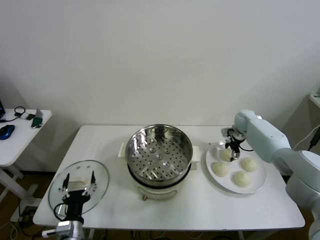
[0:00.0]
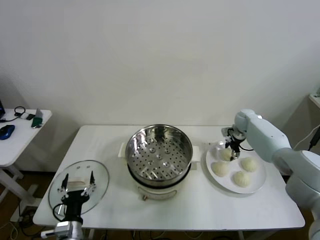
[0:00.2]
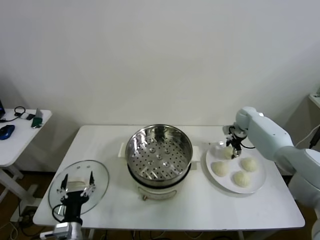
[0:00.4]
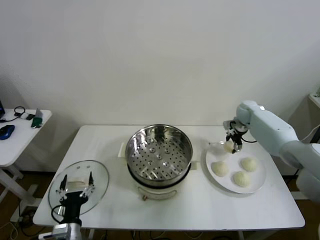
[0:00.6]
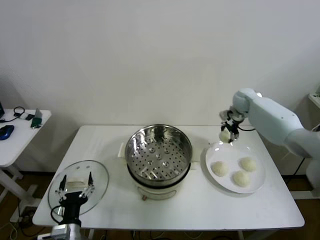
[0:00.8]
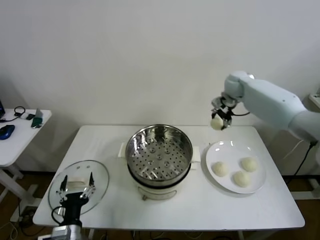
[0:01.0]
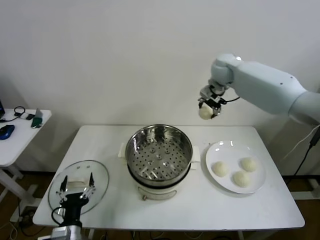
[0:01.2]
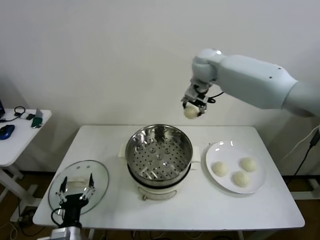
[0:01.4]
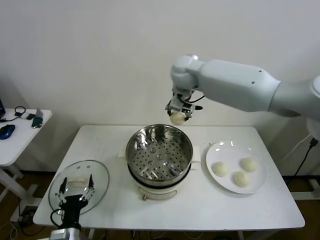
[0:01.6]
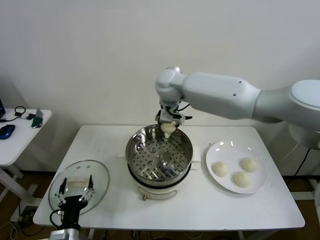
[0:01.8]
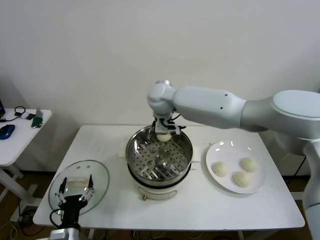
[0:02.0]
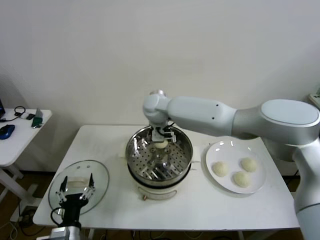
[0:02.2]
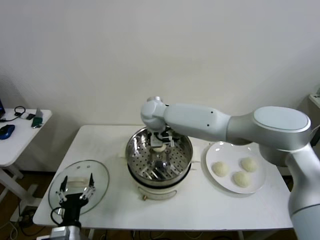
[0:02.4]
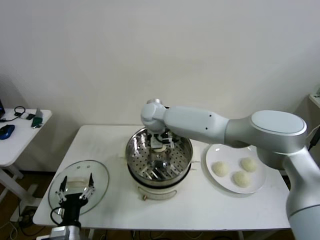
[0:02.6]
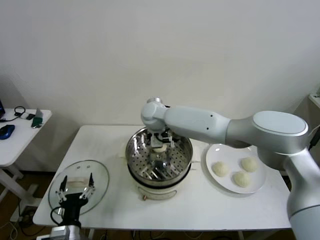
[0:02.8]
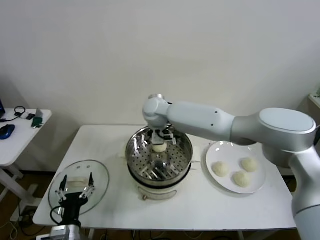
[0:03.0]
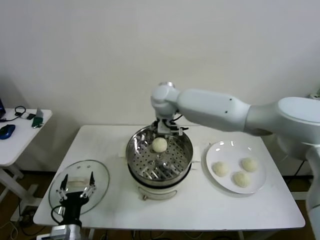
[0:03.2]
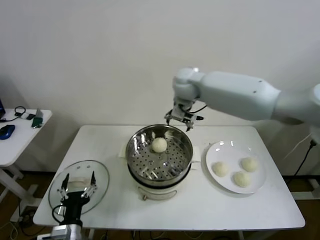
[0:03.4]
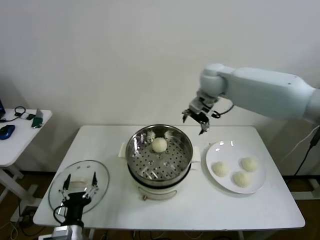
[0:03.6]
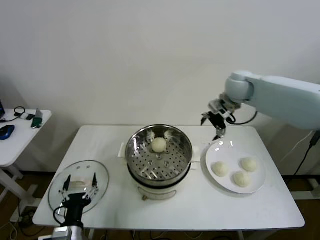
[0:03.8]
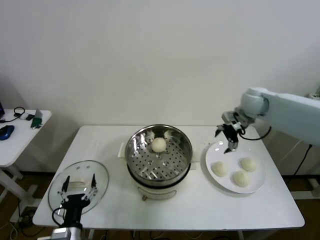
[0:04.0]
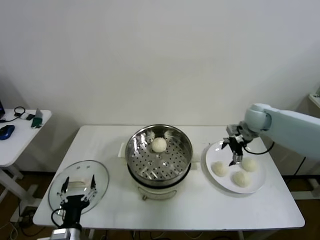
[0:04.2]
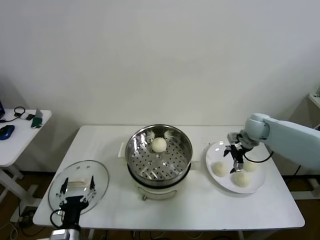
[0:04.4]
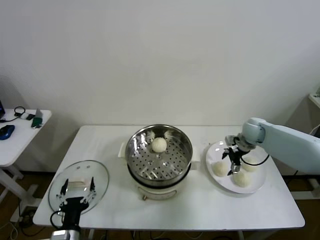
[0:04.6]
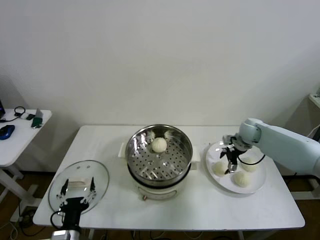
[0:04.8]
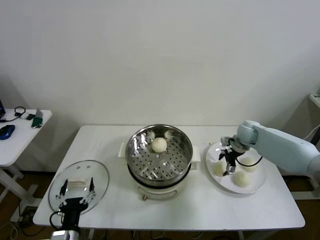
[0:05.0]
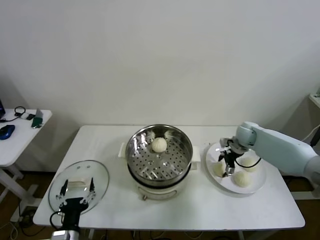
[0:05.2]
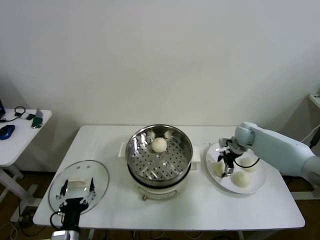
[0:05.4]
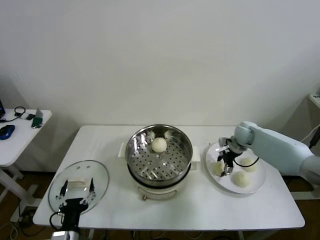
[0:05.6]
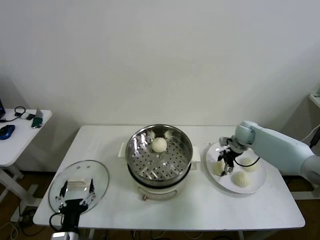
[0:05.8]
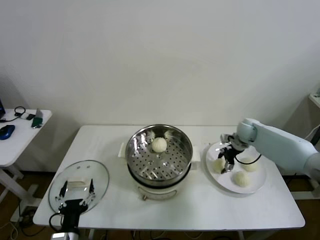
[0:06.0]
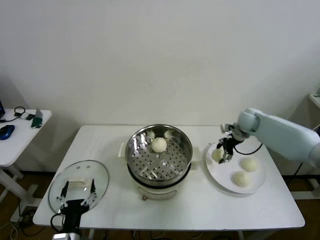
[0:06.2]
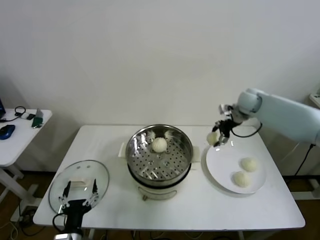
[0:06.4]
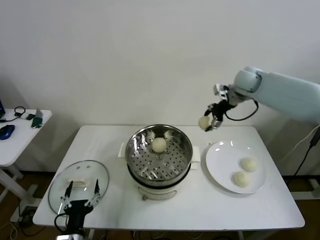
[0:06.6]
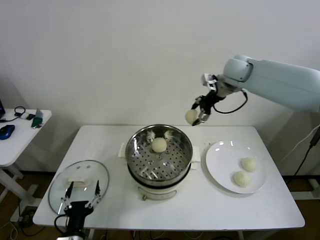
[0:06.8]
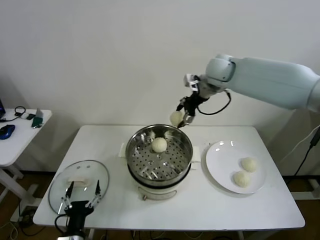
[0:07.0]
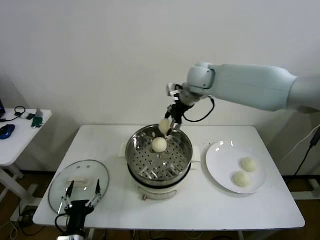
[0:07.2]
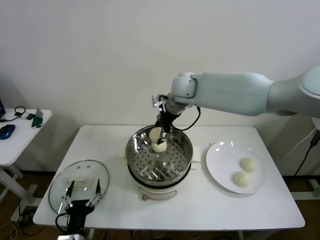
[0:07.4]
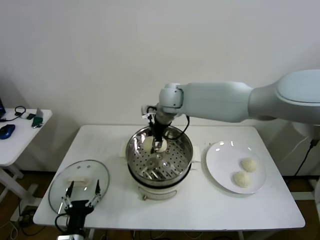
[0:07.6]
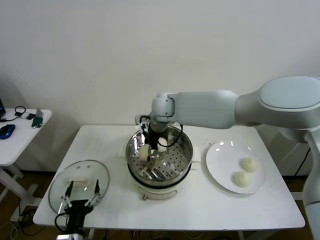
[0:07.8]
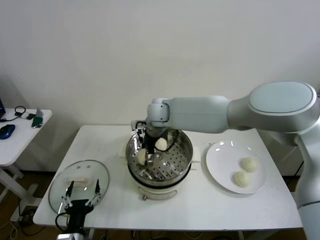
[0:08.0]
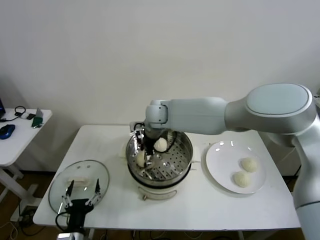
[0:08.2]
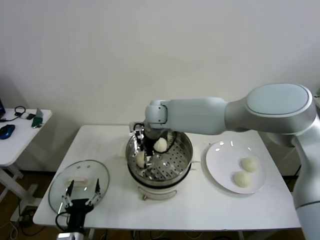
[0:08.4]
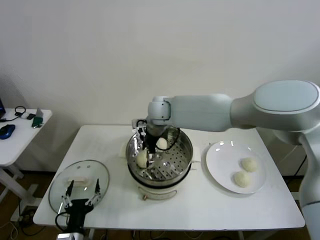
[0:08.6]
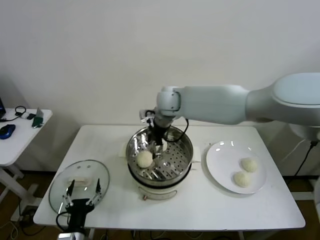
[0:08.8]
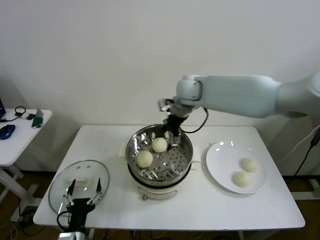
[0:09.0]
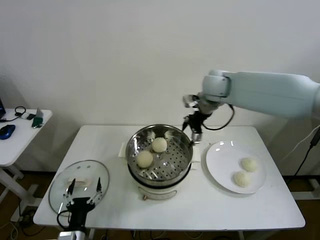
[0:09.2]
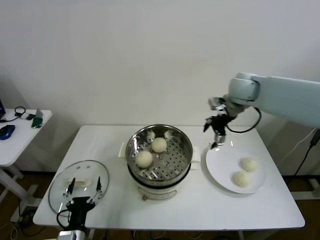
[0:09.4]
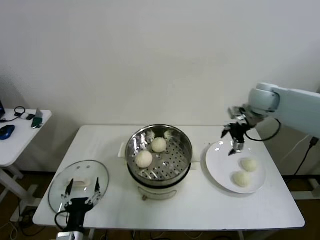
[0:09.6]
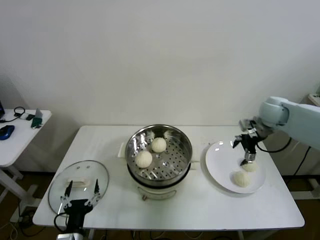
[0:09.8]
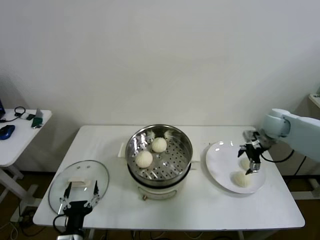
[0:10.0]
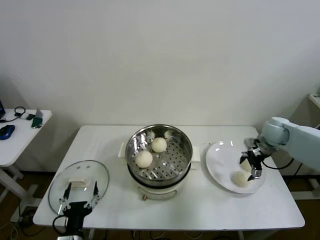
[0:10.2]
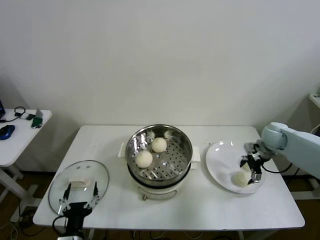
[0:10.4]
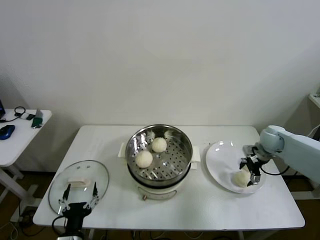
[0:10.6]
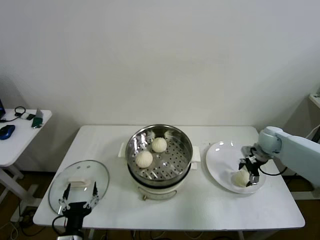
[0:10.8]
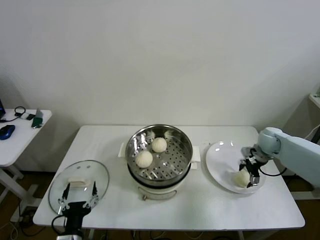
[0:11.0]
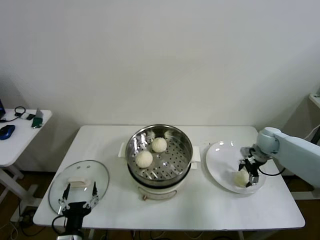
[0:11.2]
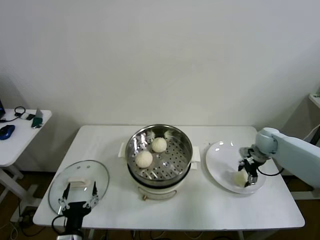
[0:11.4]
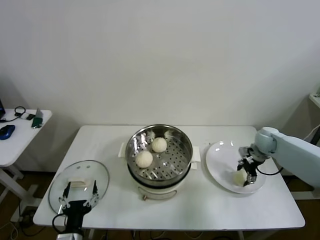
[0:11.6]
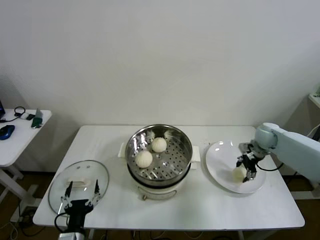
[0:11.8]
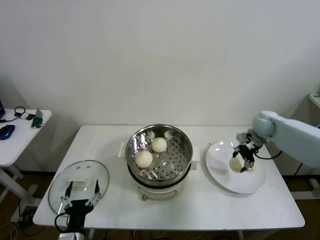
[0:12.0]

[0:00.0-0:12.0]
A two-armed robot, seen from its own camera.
Step, 0:00.2 to 0:02.8: Place the baozi on the steamer with right gripper.
Step, 0:03.0 to 0:05.6: Grasp the baozi in the plate with right gripper.
Step, 0:05.8 to 0:08.6: Place the baozi on the steamer with right gripper.
Step, 0:08.8 to 0:11.2: Grasp the baozi in the plate with right gripper.
0:00.0 to 0:01.6: The right gripper shifts approximately 40 cm to the left and upward.
0:01.6 to 0:03.0: The right gripper goes roughly 10 cm downward and to the left.
0:03.0 to 0:04.4: The right gripper is displaced to the right by some 35 cm.
0:06.0 to 0:07.6: The right gripper travels to the left and upward by about 35 cm.
0:07.6 to 0:09.0: The right gripper is displaced to the right by approximately 10 cm.
0:09.0 to 0:10.4: The right gripper is displaced to the right and downward by approximately 35 cm.
0:10.4 to 0:12.0: The right gripper moves some 5 cm.

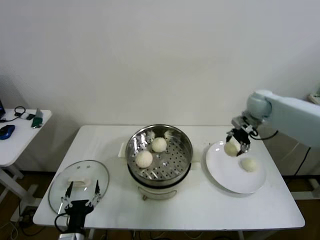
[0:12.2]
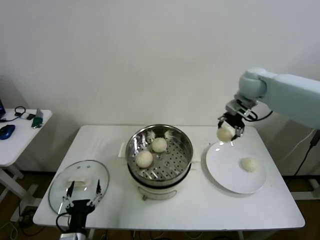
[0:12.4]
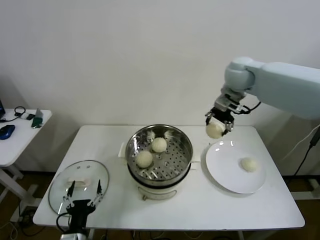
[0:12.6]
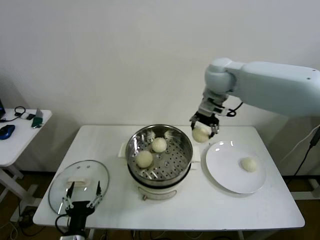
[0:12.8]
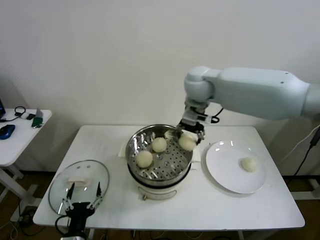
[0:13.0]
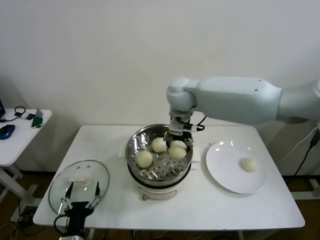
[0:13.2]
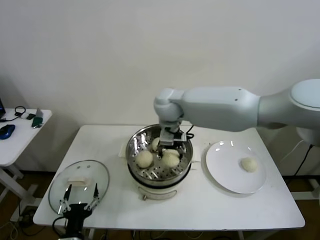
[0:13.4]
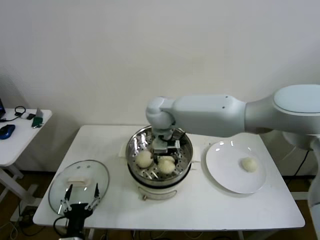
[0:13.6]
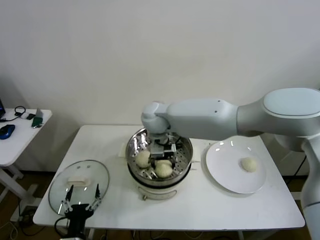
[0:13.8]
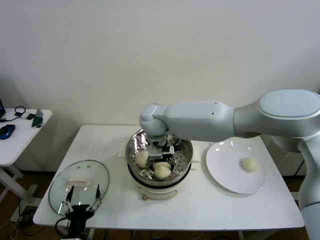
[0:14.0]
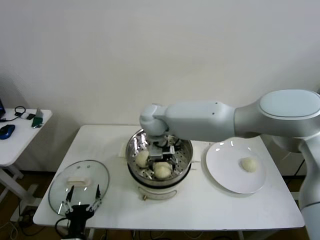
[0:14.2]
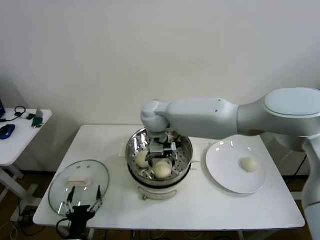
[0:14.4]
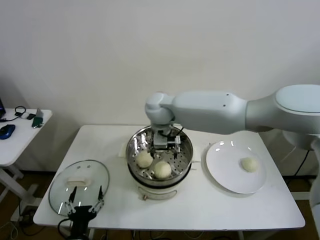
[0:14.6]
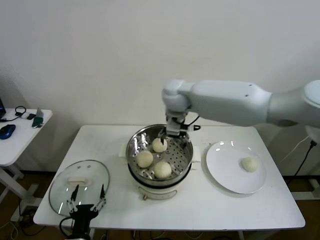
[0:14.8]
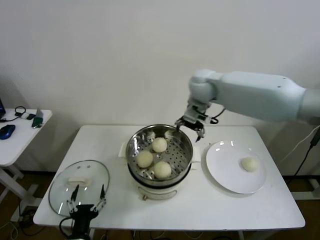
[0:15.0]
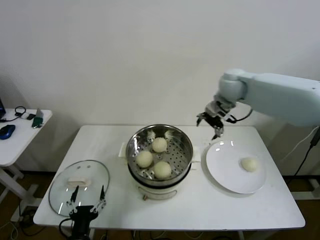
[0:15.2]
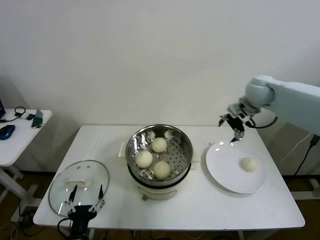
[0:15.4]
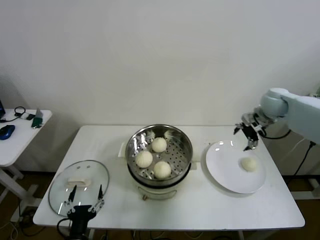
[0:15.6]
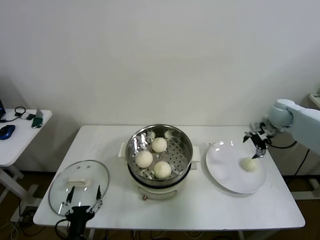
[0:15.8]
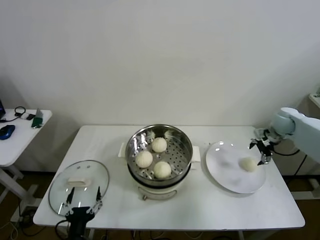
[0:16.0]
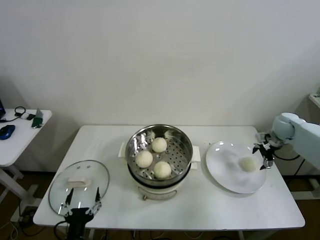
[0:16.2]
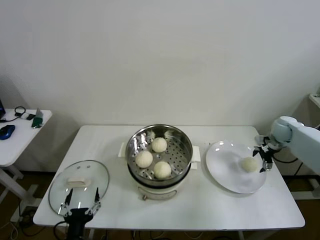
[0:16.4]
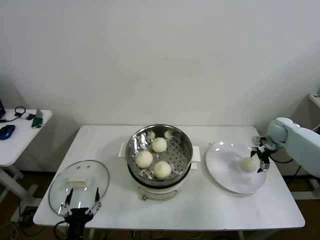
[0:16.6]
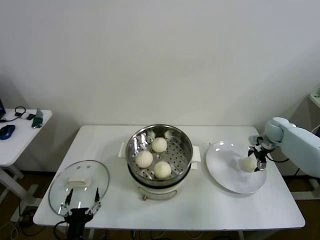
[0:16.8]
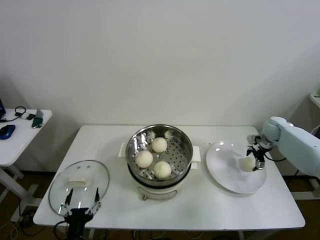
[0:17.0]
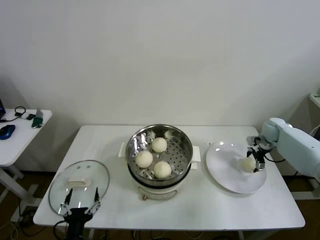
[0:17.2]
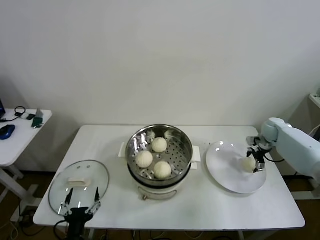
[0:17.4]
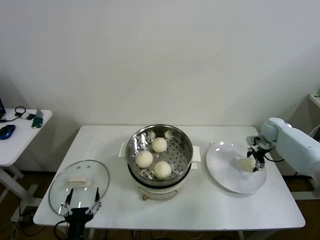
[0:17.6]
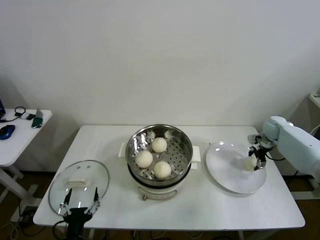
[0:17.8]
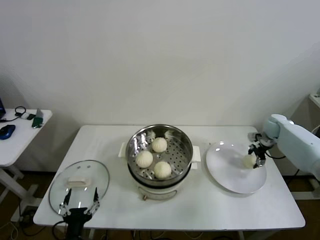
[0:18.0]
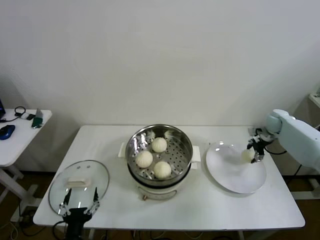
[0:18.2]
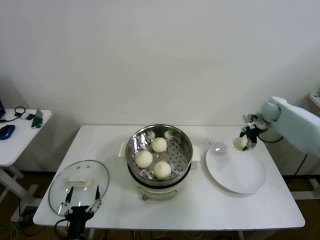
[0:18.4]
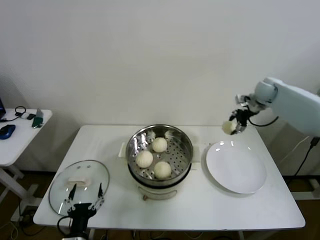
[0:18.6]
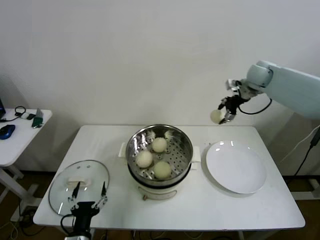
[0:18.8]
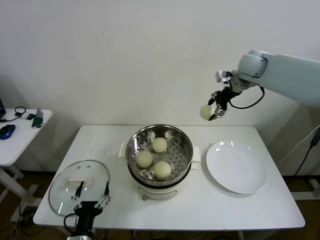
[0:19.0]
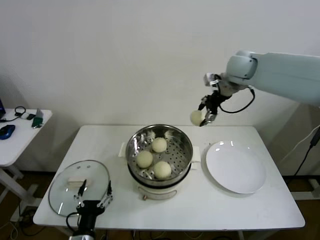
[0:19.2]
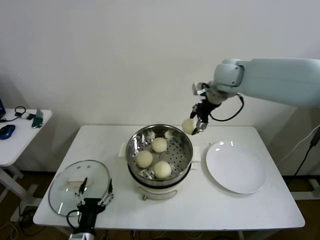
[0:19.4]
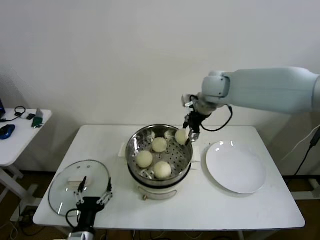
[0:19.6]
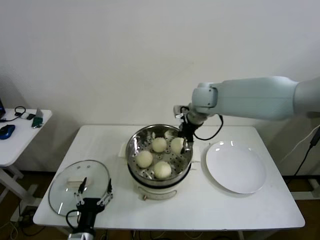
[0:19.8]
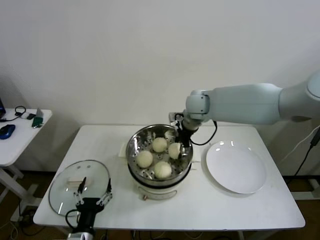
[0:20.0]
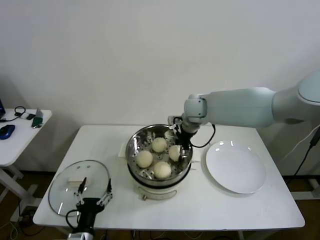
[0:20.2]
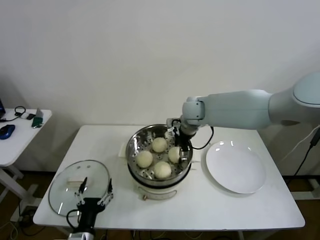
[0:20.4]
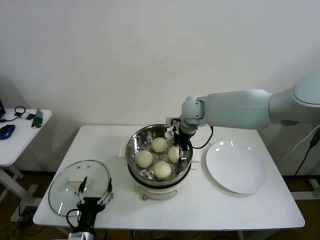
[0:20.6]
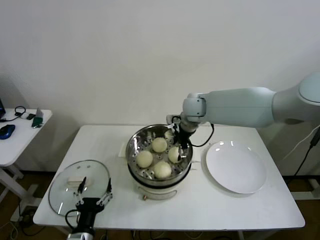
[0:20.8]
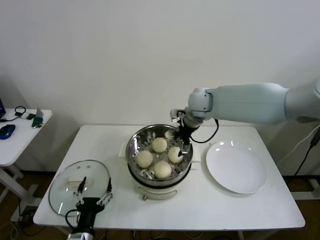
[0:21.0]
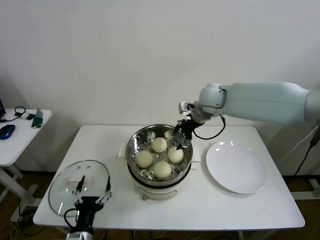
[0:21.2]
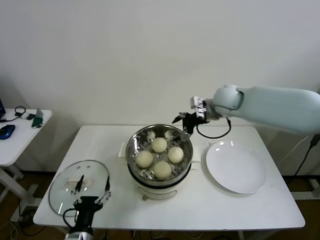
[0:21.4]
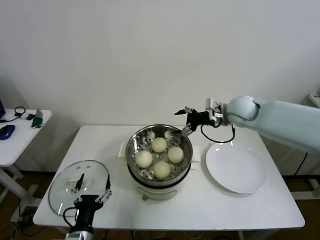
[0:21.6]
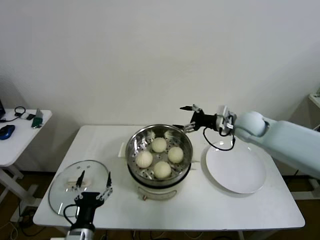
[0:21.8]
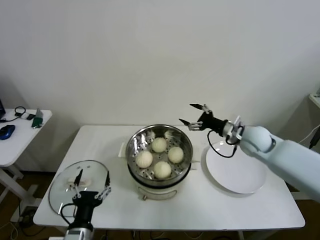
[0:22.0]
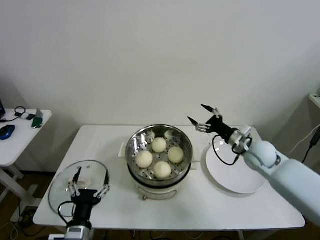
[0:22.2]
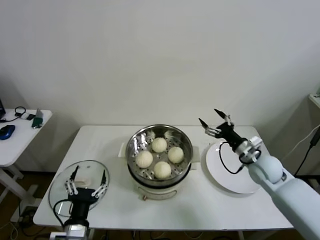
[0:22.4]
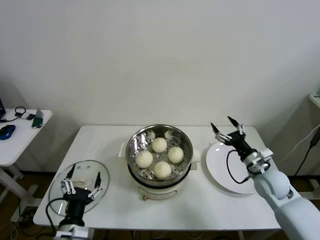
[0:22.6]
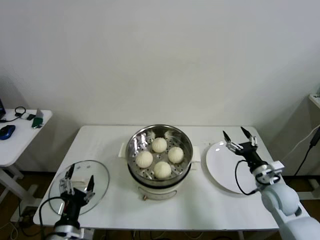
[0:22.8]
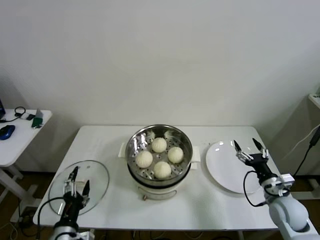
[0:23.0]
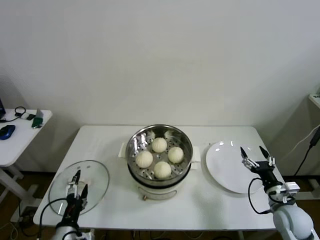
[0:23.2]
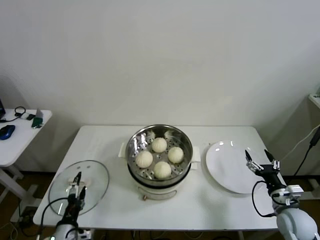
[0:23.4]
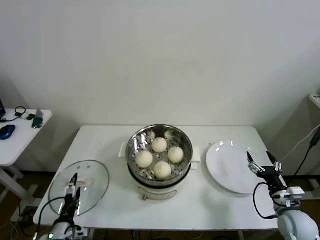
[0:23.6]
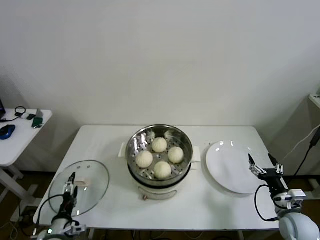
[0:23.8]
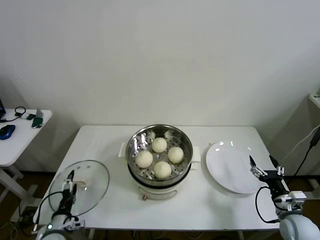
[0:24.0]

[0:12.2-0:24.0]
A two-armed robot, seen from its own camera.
Step, 0:12.2 to 0:14.4: Place the baozi on the steamer with right gripper.
Step, 0:14.6 to 0:17.6: Grasp the baozi in the plate with right gripper.
Step, 0:17.8 to 0:20.6: Place the baozi on the steamer with right gripper.
0:12.2 to 0:13.6: The right gripper travels to the left by some 35 cm.
0:13.6 to 0:15.2: The right gripper heads to the right, covering some 25 cm.
0:15.2 to 0:16.6: The right gripper shifts roughly 30 cm to the right and downward.
0:16.6 to 0:18.2: The grippers stay close to where they were, moving slightly.
0:18.2 to 0:19.6: The right gripper heads to the left and upward, covering roughly 35 cm.
0:19.6 to 0:21.0: The right gripper goes roughly 5 cm downward.
0:21.0 to 0:22.6: The left gripper moves upward, some 5 cm, while the right gripper shifts roughly 35 cm to the right, downward and backward.
0:22.6 to 0:24.0: The right gripper travels backward, downward and to the right by approximately 15 cm, while the left gripper goes roughly 20 cm downward, to the left and forward.
